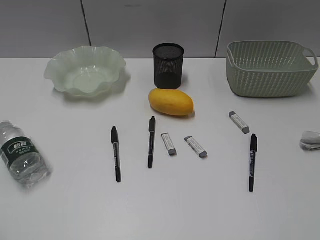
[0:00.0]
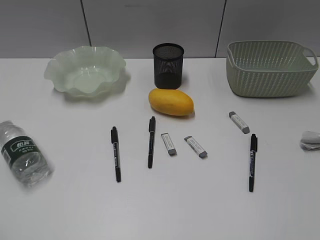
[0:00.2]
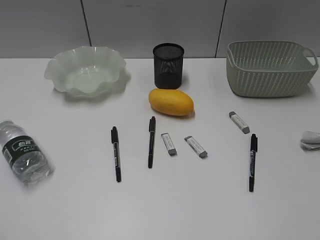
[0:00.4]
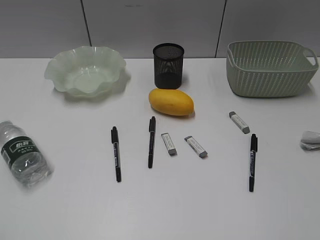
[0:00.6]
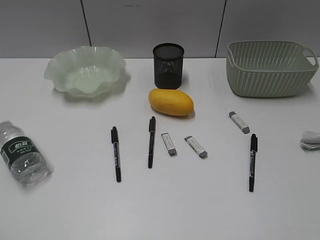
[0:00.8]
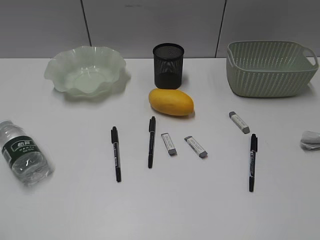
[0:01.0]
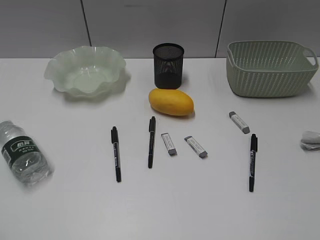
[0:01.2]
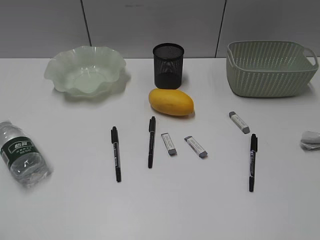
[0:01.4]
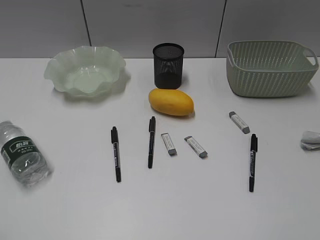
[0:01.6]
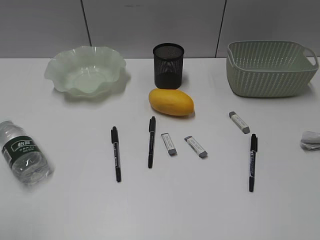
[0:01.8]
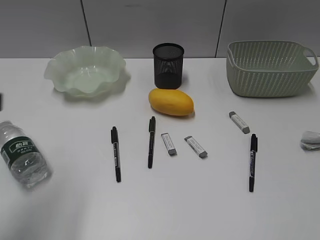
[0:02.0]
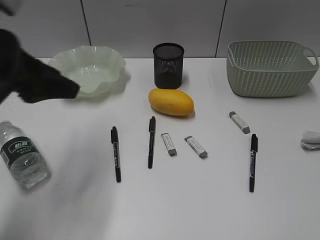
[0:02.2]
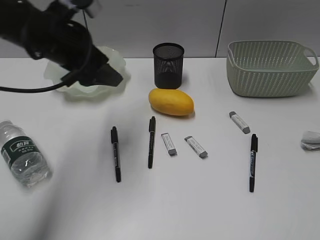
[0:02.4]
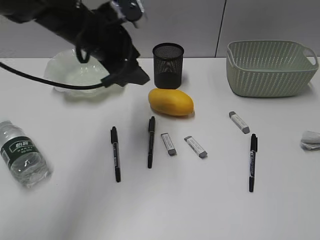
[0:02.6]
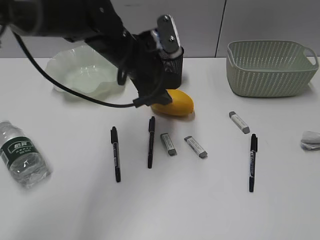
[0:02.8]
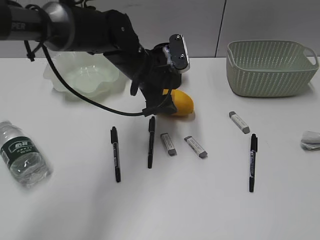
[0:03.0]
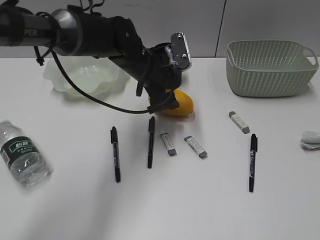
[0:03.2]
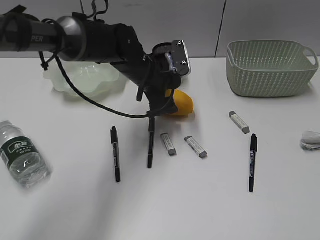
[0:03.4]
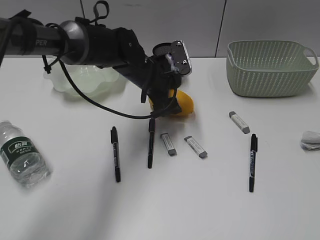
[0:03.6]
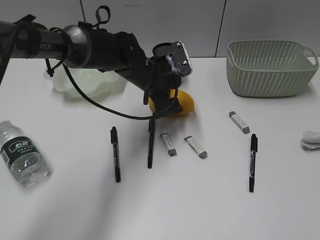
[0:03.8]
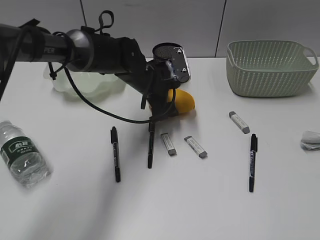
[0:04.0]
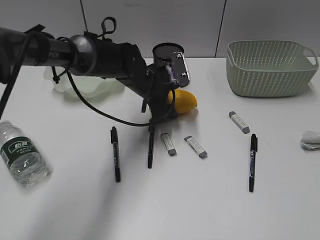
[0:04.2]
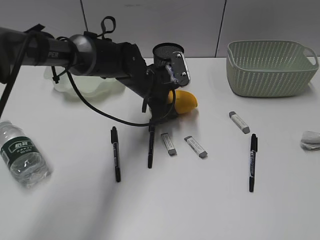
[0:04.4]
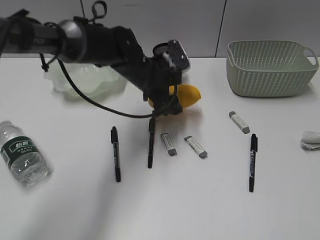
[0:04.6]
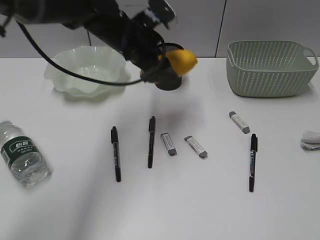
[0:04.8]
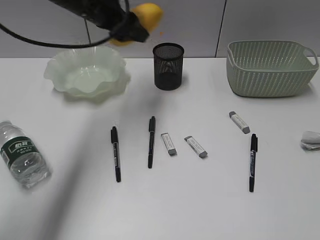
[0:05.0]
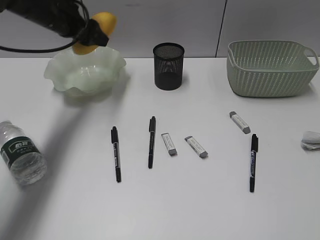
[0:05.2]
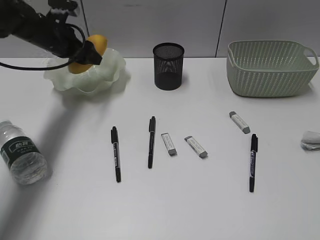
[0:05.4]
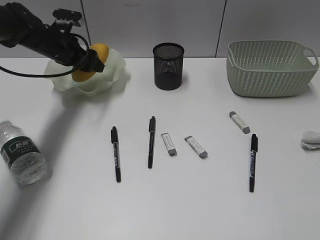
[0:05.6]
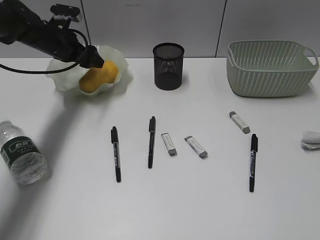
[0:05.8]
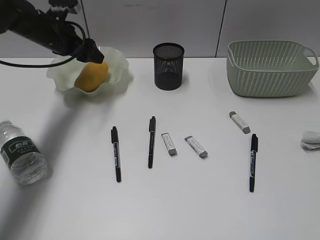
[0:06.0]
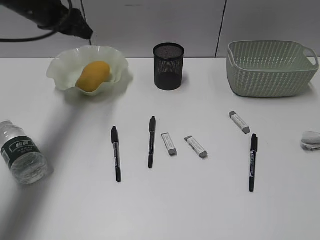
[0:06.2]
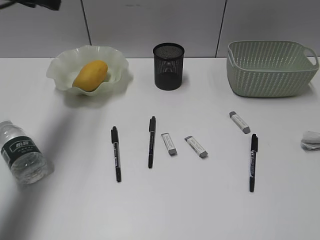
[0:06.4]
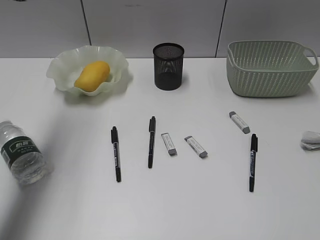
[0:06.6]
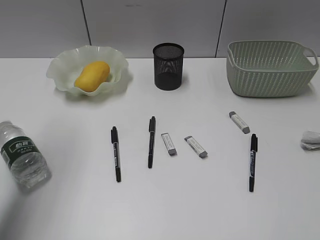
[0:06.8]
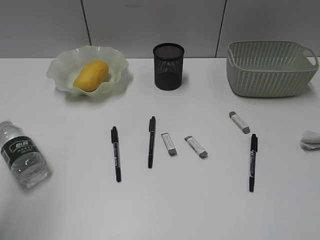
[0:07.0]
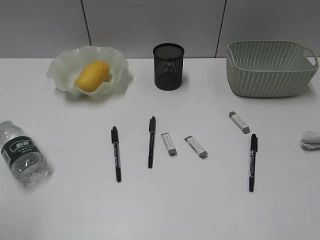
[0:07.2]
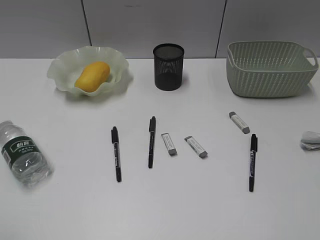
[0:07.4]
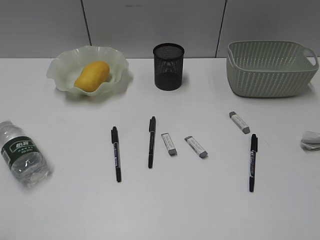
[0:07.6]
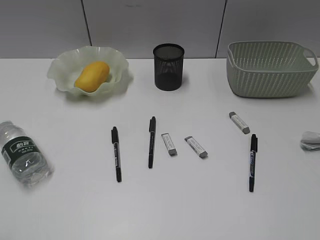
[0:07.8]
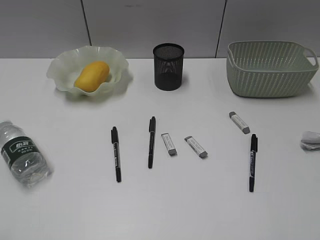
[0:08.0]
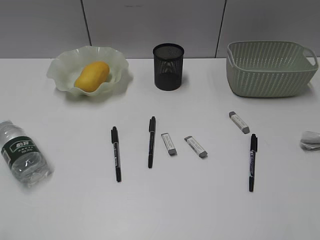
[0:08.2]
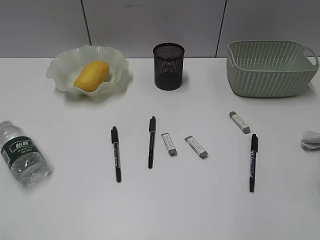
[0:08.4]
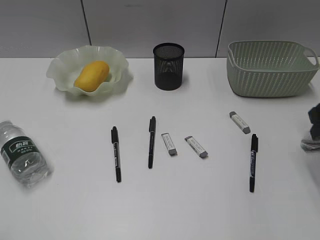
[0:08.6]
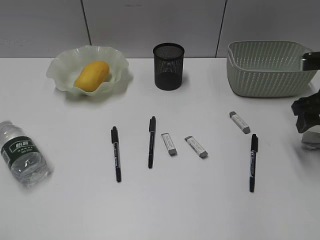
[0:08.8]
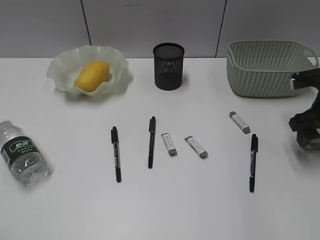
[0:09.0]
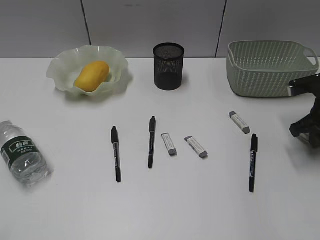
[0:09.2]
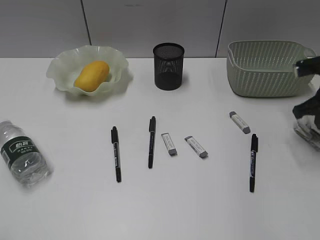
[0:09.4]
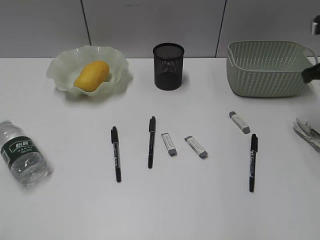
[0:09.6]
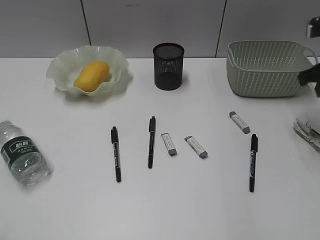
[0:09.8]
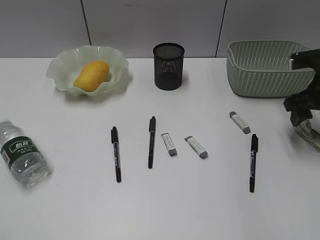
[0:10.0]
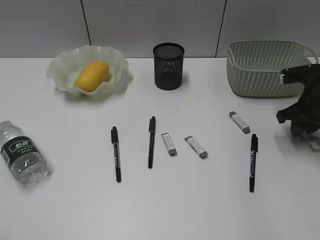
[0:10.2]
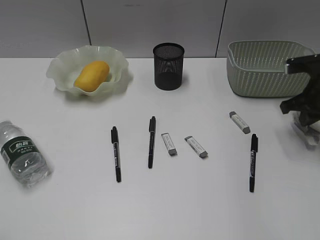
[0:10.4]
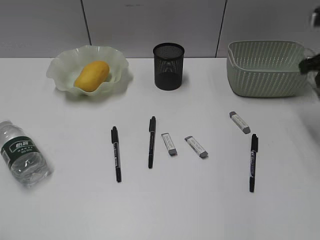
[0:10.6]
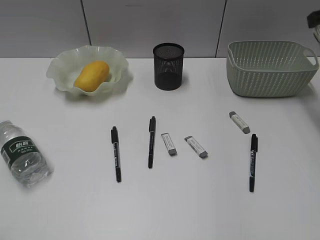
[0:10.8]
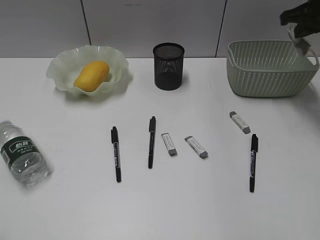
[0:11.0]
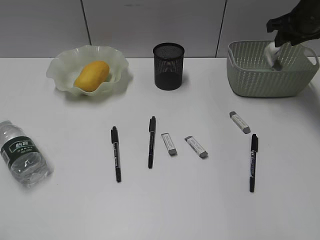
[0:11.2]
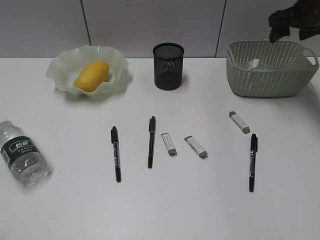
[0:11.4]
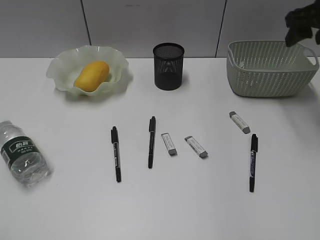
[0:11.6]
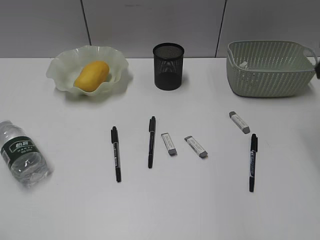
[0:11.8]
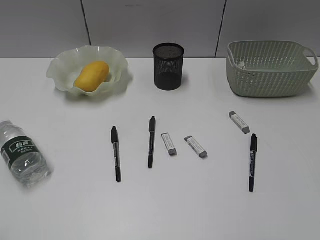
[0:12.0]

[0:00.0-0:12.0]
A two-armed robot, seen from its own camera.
Step, 0:01.6 to 0:04.4: Grasp the mango with left gripper.
Step, 0:04.6 to 0:06.4: Place the mango in the plate with left gripper.
Step, 0:06.6 to 0:10.4: Grasp the waste paper with right gripper.
Step, 0:10.6 to 0:11.2: Place the waste paper in the basket with right gripper.
0:01.6 to 0:03.0: The left gripper travels forward and to the right by approximately 50 cm, and opens up.
0:03.0 to 0:04.4: The left gripper goes roughly 5 cm downward.
0:04.4 to 0:06.0: The left gripper is displaced to the left by approximately 20 cm.
0:06.0 to 0:07.6: The left gripper shifts roughly 50 cm backward, and closes up.
0:07.6 to 0:09.0: The right gripper heads forward and downward, covering roughly 35 cm, and opens.
0:09.0 to 0:10.4: The right gripper moves about 10 cm upward and comes back, and closes its fingers.
0:10.4 to 0:12.0: The right gripper travels backward and upward by roughly 25 cm, and opens its fingers.

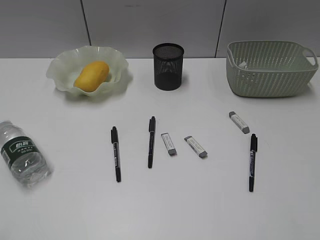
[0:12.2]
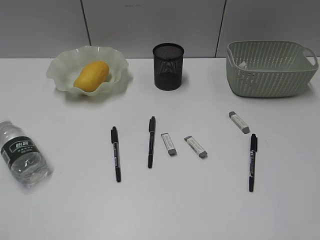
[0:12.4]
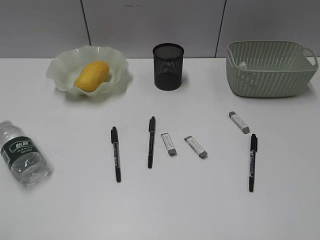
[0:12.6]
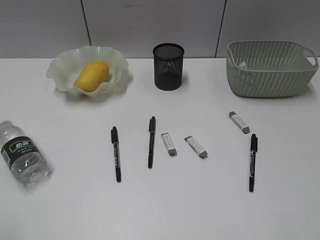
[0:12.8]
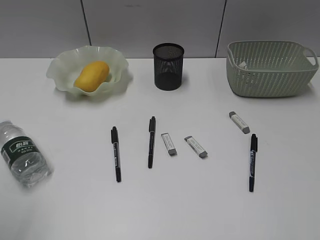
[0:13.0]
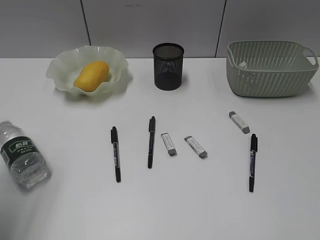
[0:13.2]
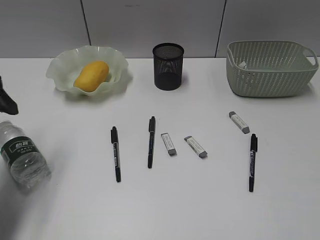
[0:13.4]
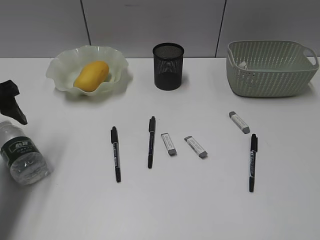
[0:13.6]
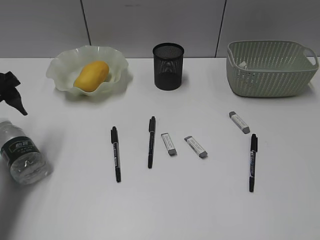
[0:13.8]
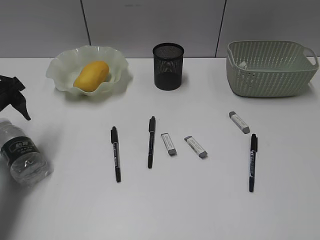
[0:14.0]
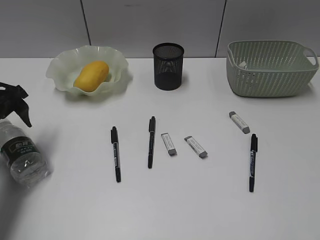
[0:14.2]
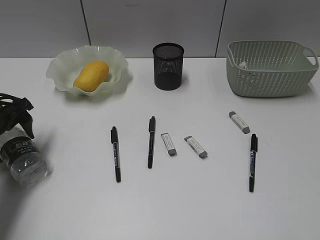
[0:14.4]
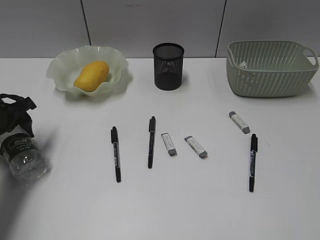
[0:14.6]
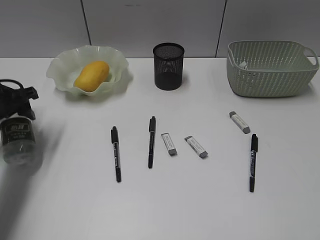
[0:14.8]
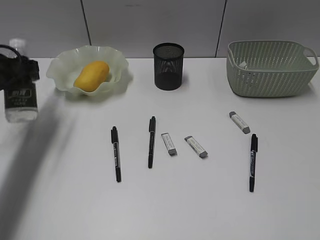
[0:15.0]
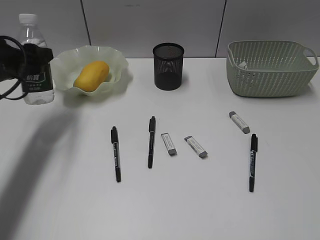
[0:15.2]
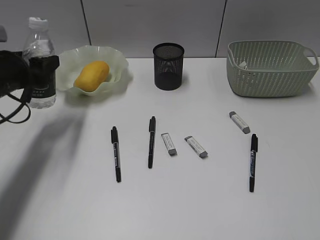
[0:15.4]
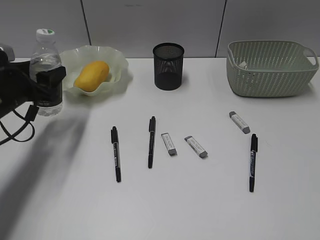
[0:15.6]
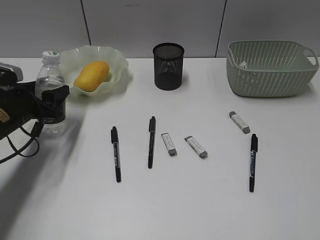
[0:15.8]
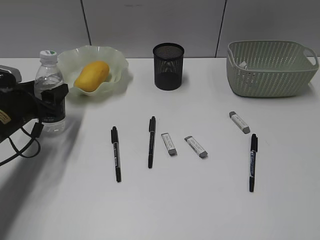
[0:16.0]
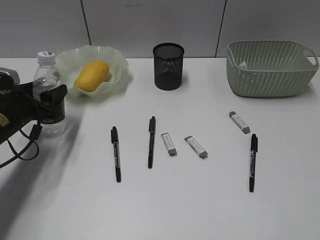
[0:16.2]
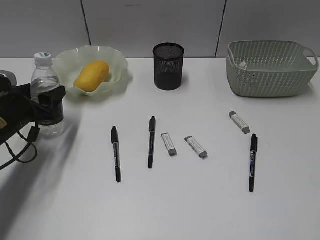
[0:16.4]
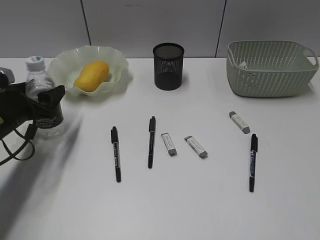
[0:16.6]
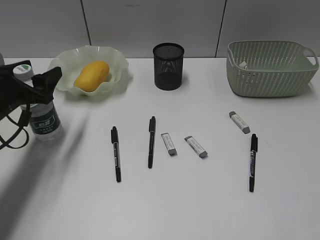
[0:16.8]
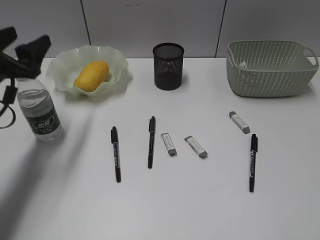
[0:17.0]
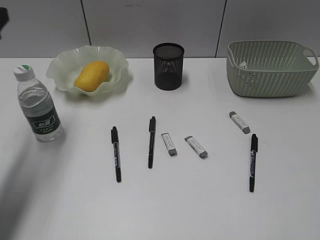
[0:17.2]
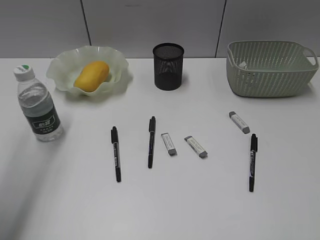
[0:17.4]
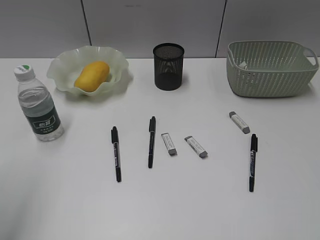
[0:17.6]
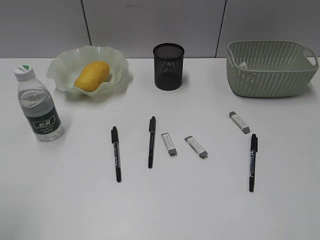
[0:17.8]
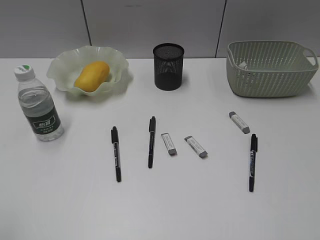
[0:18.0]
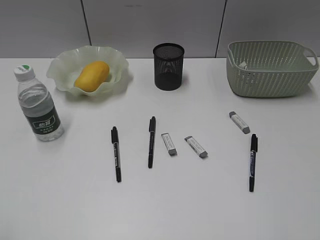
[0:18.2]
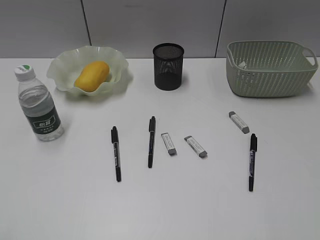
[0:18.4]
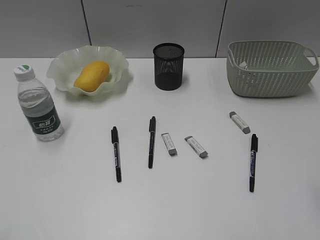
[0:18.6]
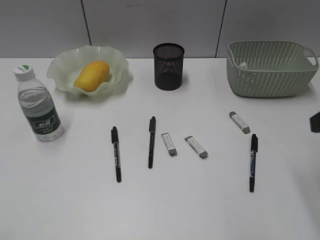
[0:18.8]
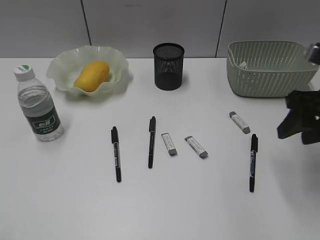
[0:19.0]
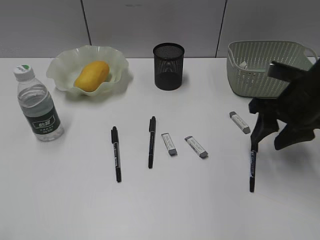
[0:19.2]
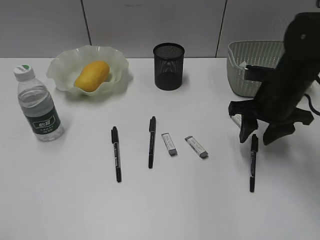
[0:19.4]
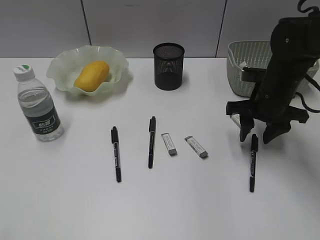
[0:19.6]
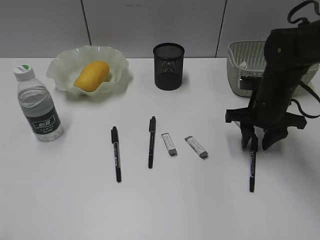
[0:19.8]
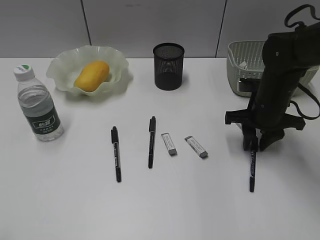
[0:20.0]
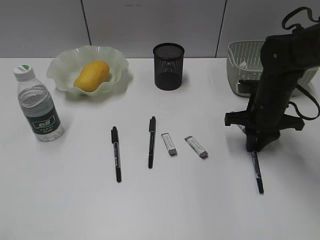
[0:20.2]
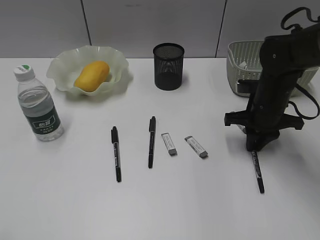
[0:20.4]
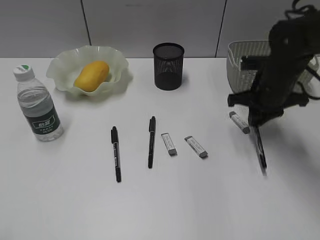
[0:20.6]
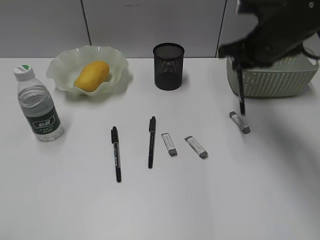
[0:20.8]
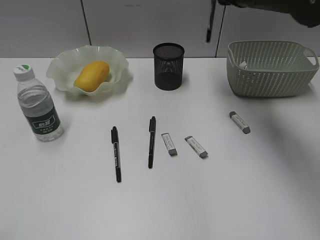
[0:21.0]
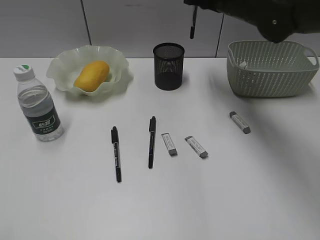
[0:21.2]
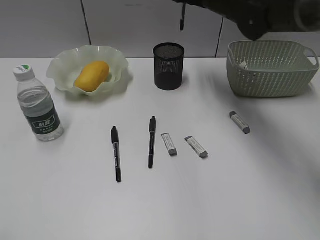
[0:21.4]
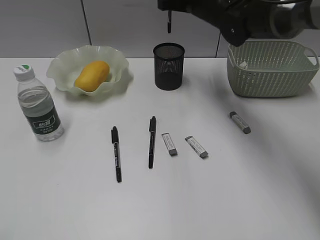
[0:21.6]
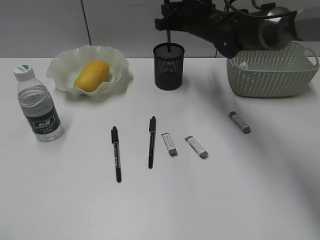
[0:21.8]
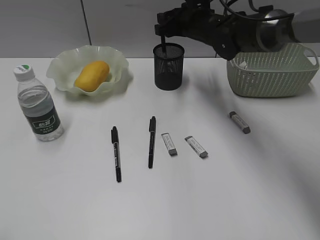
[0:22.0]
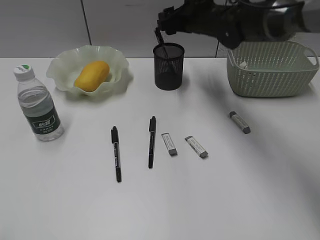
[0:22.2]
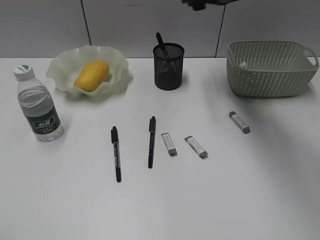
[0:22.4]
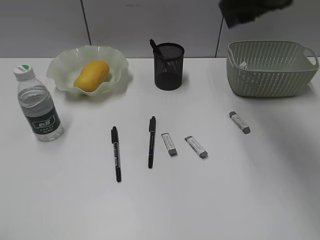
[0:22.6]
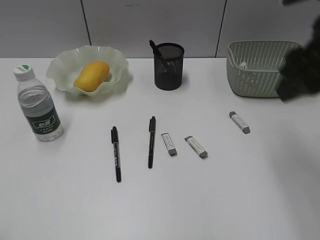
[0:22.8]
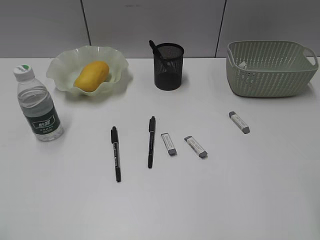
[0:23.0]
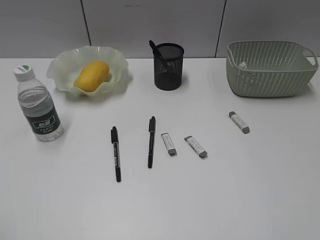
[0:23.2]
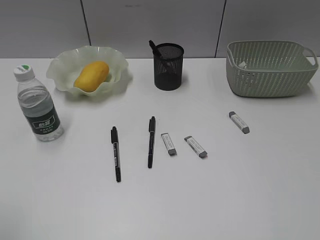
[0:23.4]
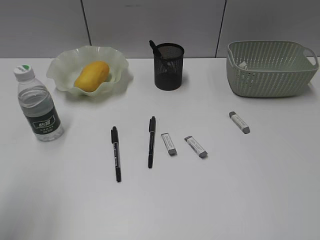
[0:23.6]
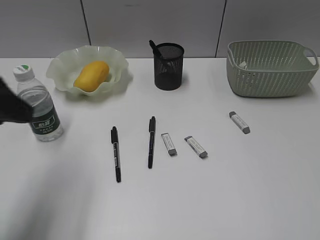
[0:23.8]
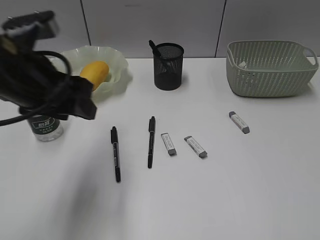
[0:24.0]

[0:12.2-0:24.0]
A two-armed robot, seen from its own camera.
Step, 0:12.2 to 0:14.6: Grasp the bottle with left gripper.
Step, 0:14.8 to 0:16.8: Stand the bottle with left gripper.
Step, 0:17.0 to 0:20.4: Grasp the black pen with right gripper.
0:12.2 to 0:13.6: The left gripper travels forward by roughly 30 cm, and opens up.
0:13.6 to 0:15.2: The left gripper shifts some 5 cm forward, and moves roughly 10 cm downward and comes back.
0:15.2 to 0:16.6: The left gripper heads downward, covering about 10 cm.
0:16.6 to 0:18.2: The left gripper is displaced backward and upward by approximately 35 cm.
0:18.2 to 0:19.6: The right gripper shifts some 40 cm forward and downward.
0:19.6 to 0:21.0: The right gripper travels upward by some 15 cm, and closes.
0:21.0 to 0:22.6: The right gripper reaches some 10 cm downward, then returns, and opens its fingers.
0:22.6 to 0:24.0: The right gripper heads backward and to the right, covering roughly 40 cm. The left gripper heads forward and to the right, covering approximately 30 cm.
